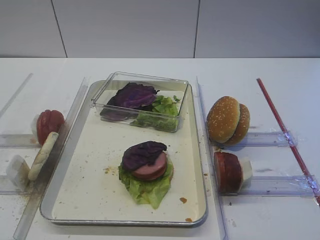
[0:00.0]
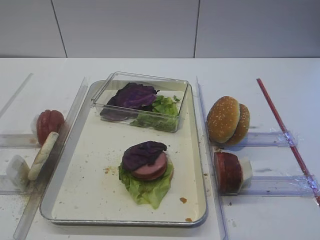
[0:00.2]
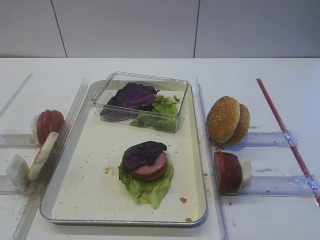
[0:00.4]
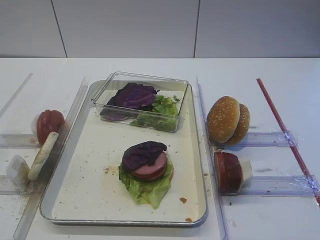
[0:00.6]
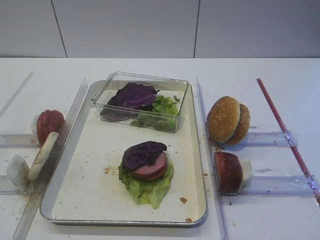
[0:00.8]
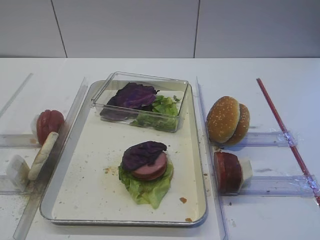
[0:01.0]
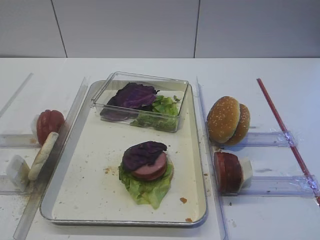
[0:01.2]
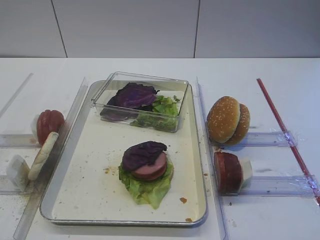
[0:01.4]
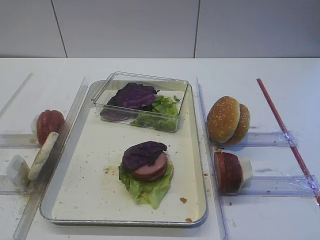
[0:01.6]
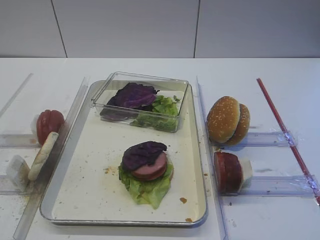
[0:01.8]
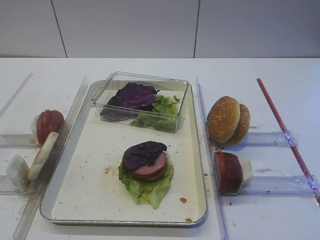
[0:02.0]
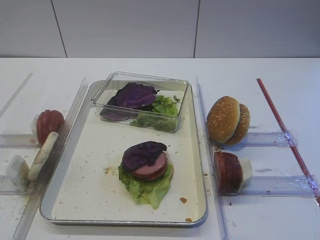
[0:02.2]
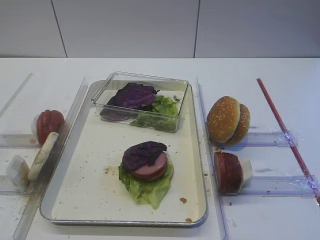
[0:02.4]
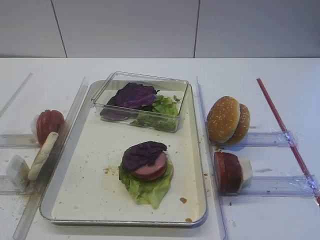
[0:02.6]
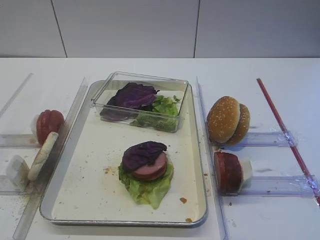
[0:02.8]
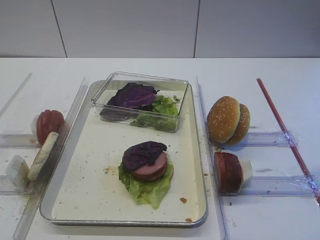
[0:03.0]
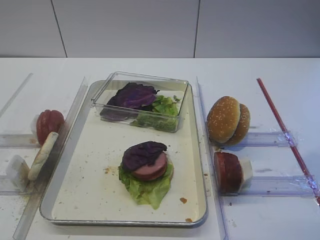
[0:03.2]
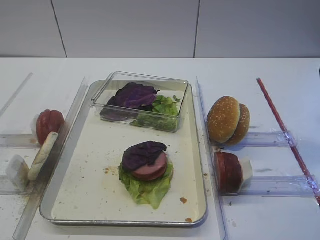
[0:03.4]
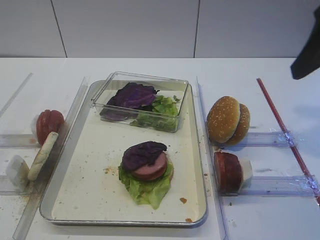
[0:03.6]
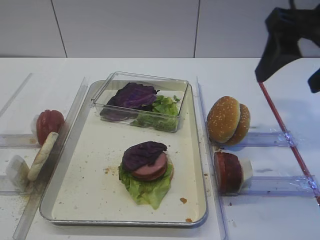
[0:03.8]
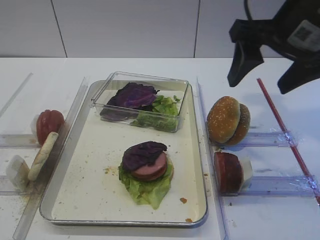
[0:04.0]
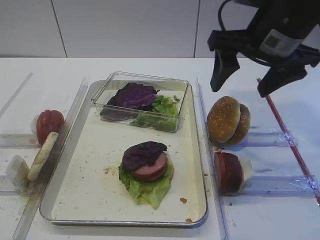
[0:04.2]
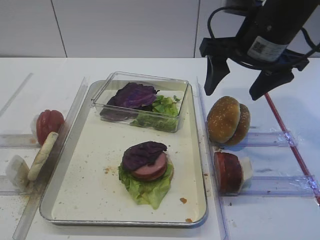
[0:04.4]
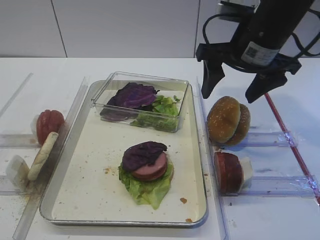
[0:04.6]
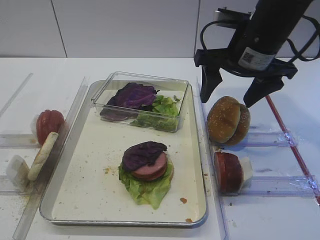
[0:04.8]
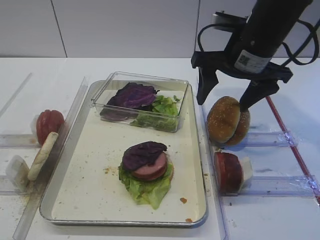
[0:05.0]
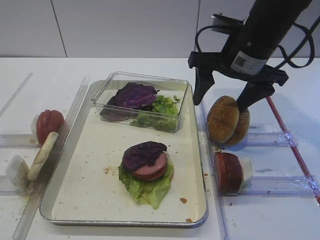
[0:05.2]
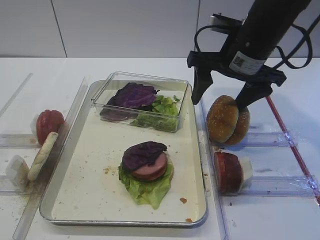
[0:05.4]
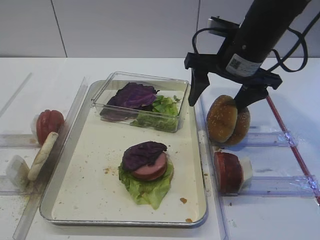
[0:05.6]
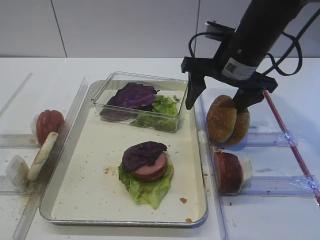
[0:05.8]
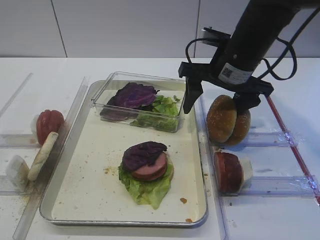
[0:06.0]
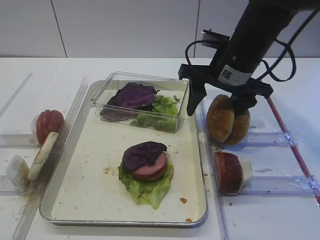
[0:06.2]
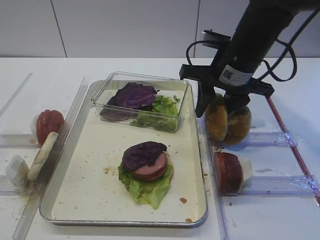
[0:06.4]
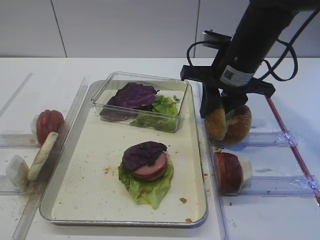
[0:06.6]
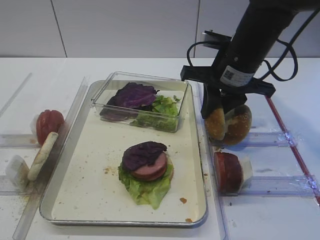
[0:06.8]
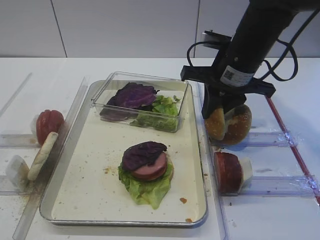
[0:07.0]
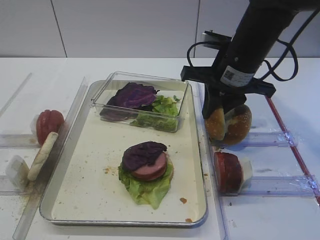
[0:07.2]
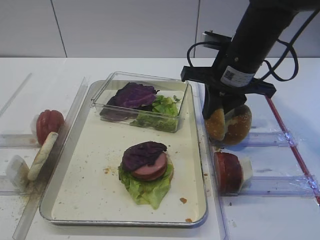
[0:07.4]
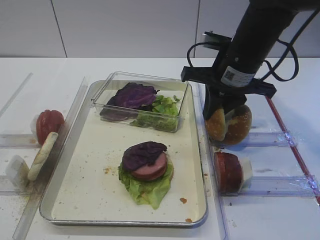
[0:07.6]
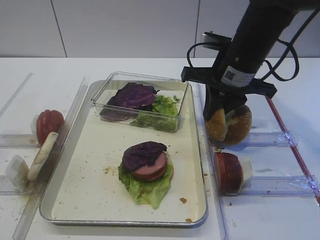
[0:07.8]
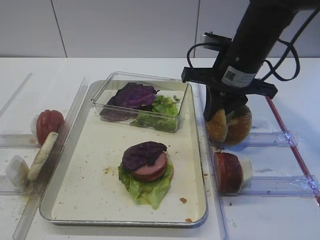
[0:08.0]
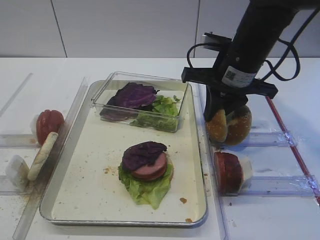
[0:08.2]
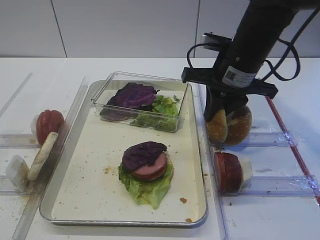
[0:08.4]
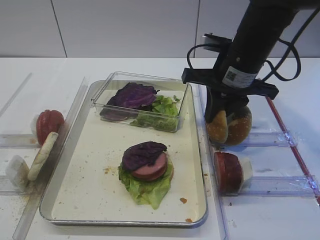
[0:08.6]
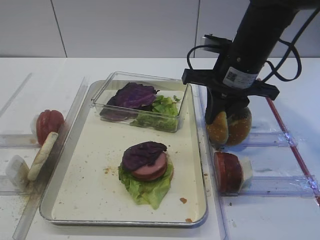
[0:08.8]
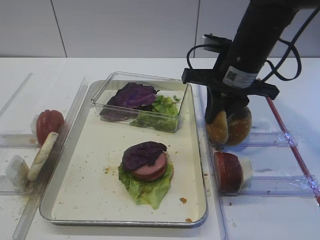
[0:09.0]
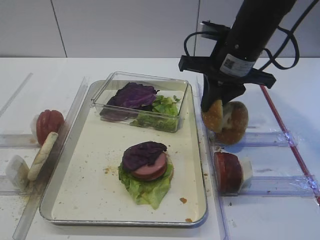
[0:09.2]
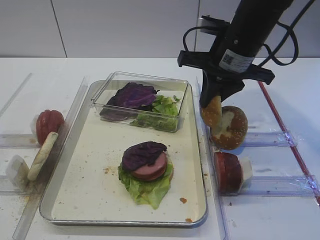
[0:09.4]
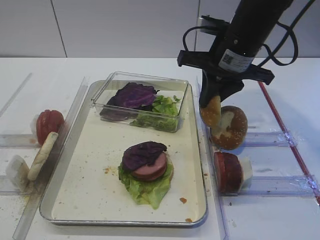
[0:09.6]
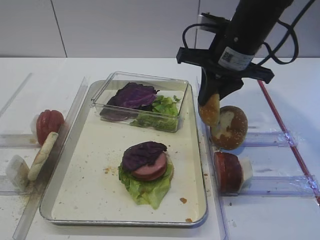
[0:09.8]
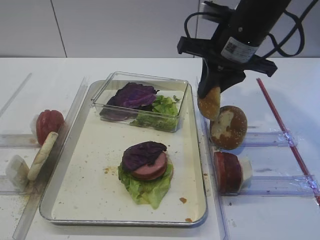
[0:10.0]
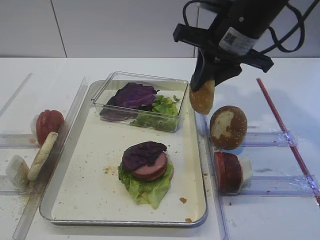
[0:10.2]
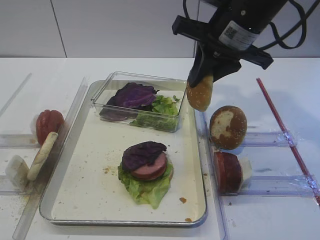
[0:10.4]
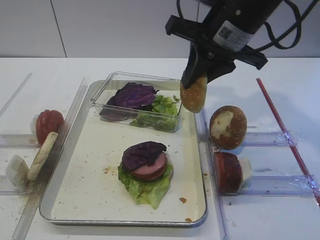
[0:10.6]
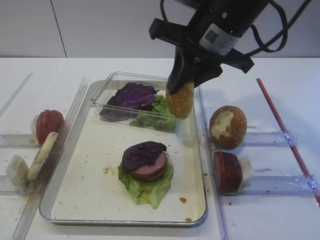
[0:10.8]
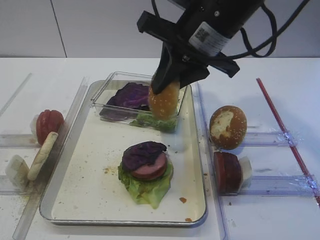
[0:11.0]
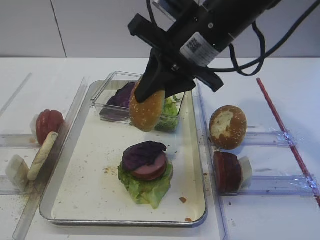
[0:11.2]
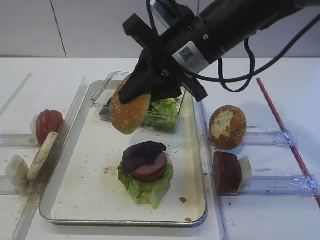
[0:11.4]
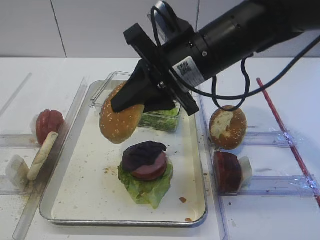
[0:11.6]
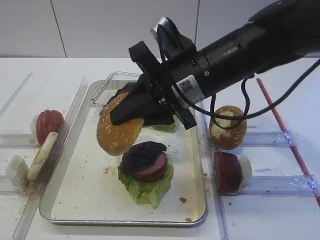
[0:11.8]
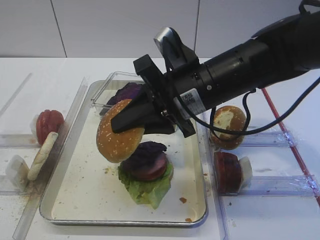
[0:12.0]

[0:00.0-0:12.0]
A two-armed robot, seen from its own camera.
Step, 0:00.0 to 0:09.2: Pick up the hamburger lid with the right gripper.
0:03.0 to 0:04.4: The right gripper shifts approximately 20 cm forward and to the left.
0:04.4 to 0:06.0: The right gripper heads downward, covering approximately 5 cm.
0:06.0 to 0:07.6: The right gripper closes.
0:07.6 to 0:09.0: Neither gripper changes place.
0:09.0 to 0:10.4: The right gripper moves upward, roughly 5 cm.
0:10.4 to 0:12.0: The right gripper shifts about 10 cm downward, backward and to the left.

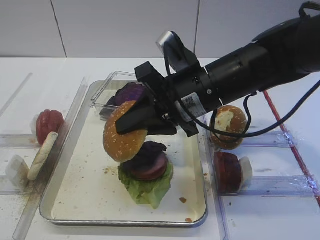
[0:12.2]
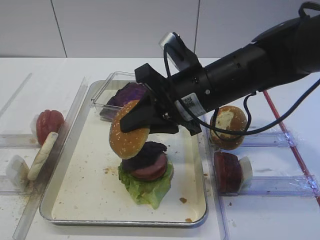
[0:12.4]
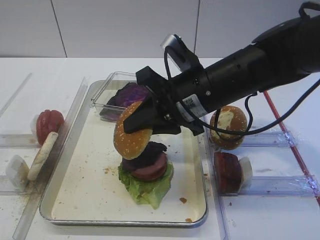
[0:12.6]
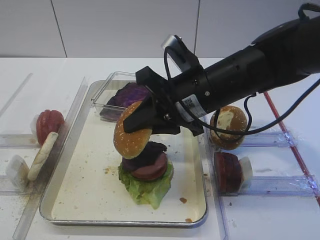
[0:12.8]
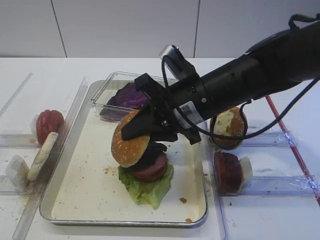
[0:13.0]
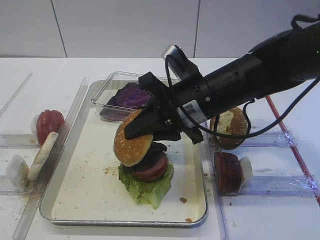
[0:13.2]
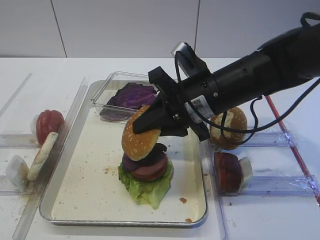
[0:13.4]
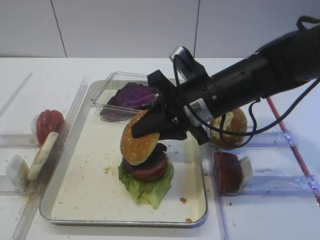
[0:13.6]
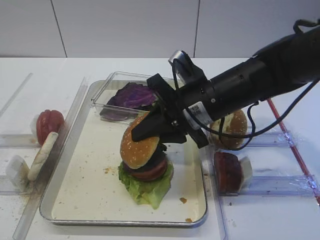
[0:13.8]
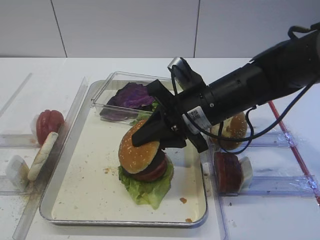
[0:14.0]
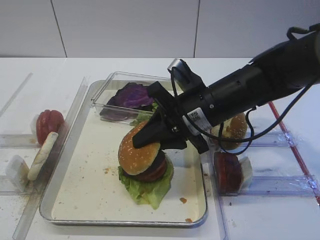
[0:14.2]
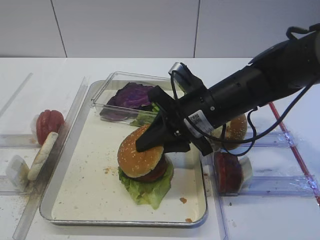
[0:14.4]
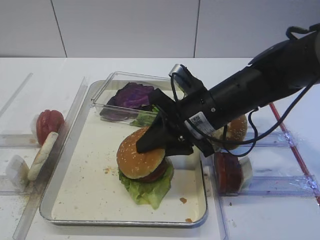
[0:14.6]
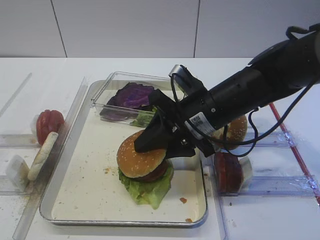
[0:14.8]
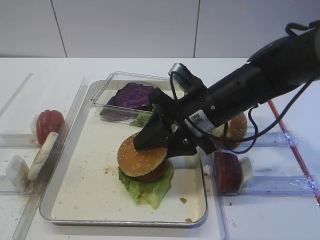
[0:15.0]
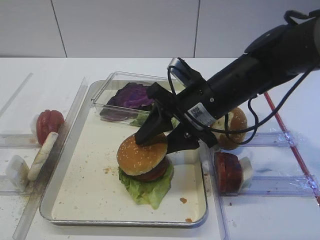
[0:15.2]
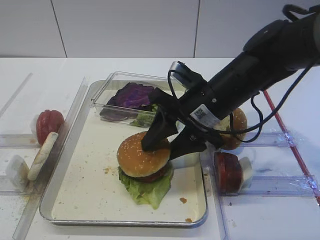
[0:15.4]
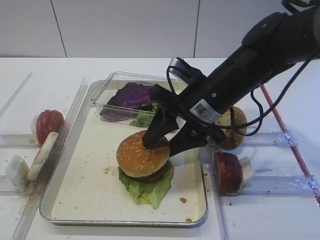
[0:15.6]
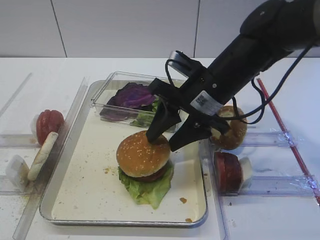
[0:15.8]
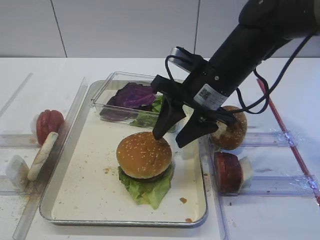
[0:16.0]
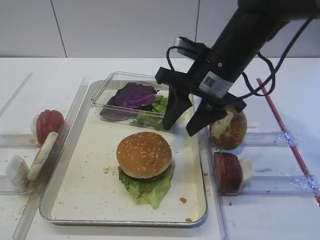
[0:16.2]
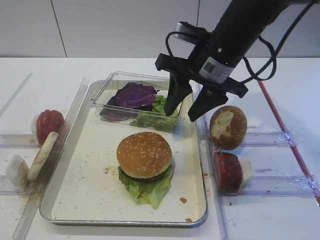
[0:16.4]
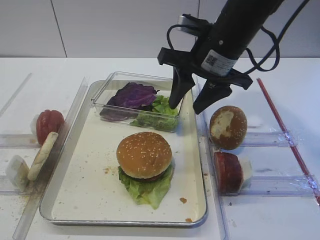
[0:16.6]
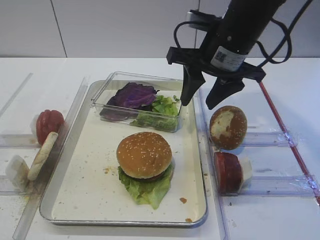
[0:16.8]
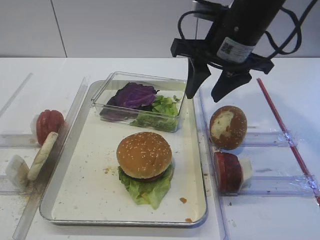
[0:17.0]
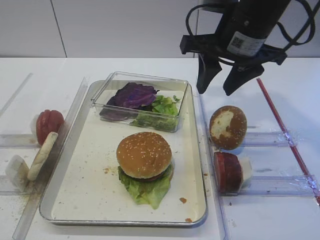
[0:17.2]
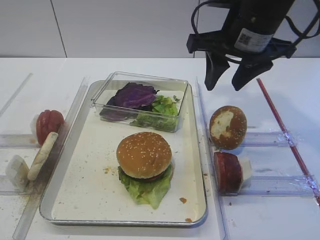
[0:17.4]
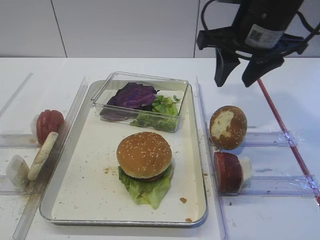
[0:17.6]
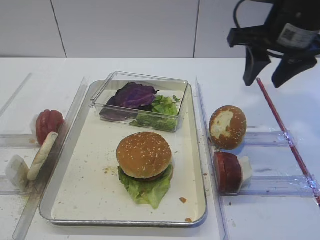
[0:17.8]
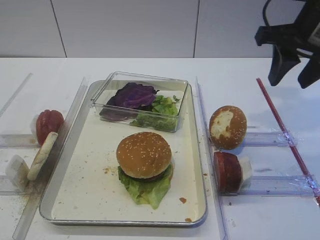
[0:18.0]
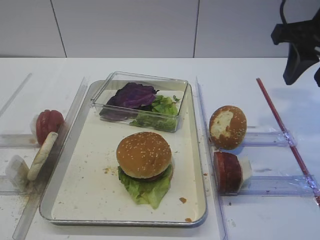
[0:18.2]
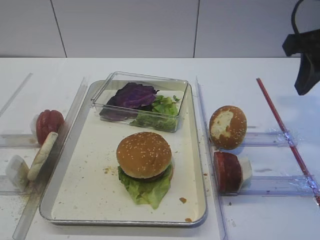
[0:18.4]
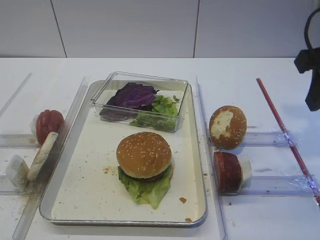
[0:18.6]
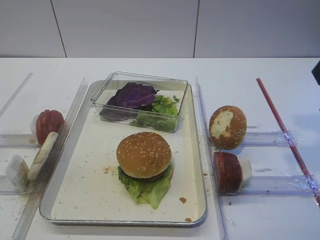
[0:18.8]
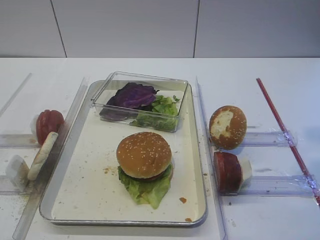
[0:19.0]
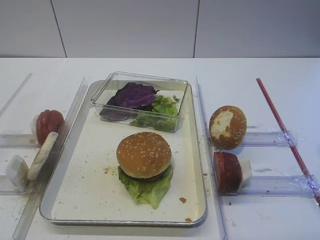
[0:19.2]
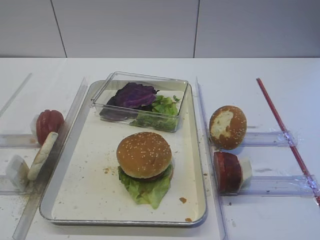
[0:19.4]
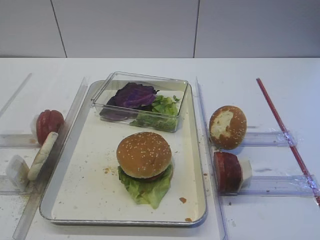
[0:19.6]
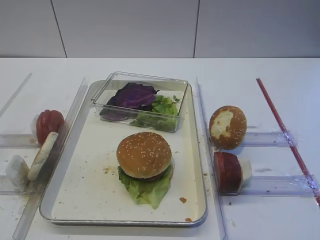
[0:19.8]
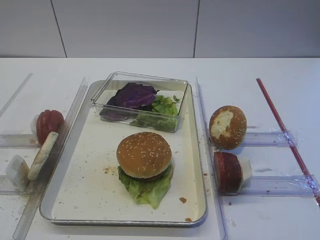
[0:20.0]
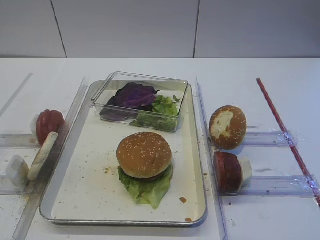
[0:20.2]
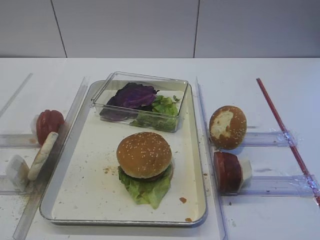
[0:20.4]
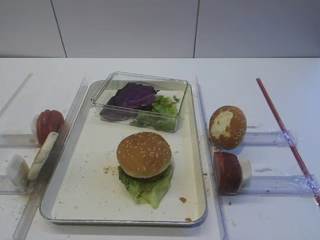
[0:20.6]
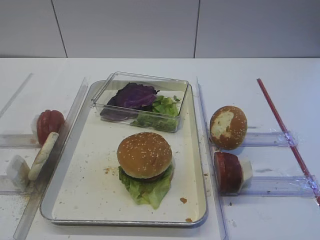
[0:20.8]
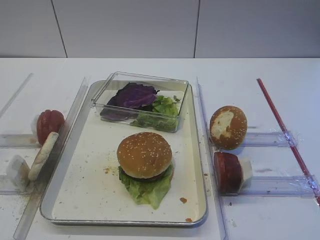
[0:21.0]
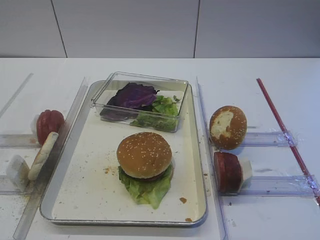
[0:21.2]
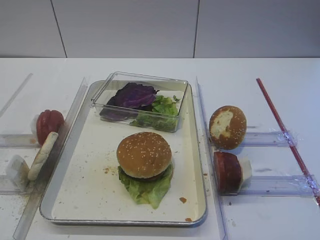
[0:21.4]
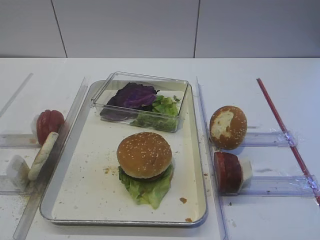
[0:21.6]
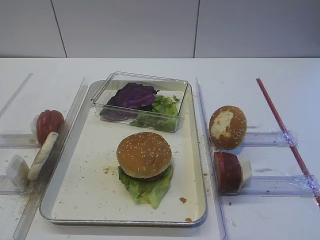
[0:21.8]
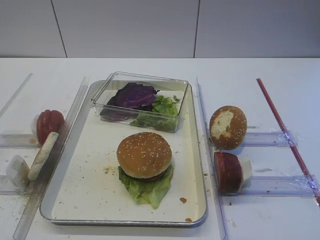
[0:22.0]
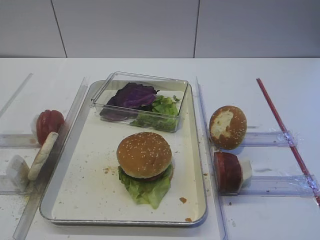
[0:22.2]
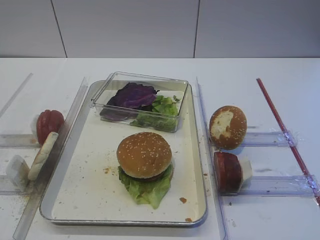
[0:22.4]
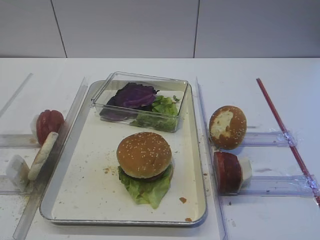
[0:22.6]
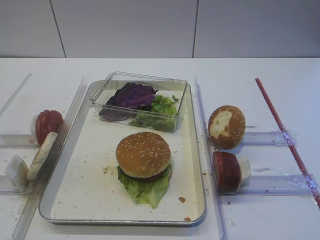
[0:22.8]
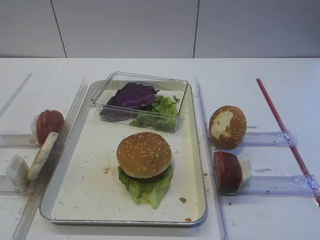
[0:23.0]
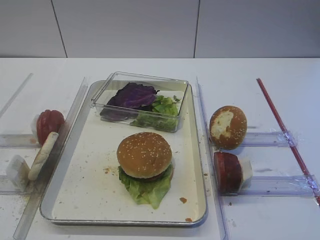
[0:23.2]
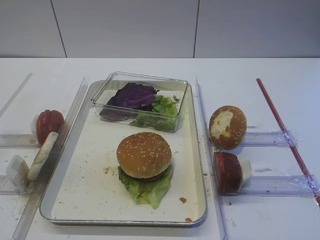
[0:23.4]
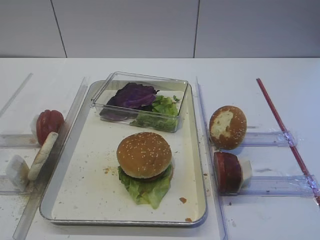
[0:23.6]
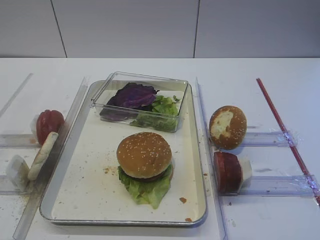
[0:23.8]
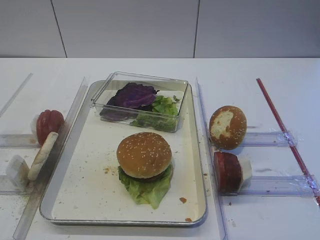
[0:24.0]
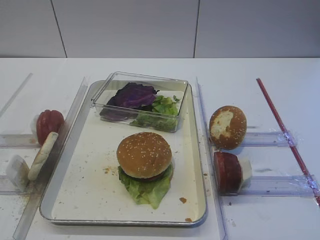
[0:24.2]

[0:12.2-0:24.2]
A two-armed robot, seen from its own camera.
Step, 0:12.2 to 0:15.8: Place the hamburger lid on the purple cabbage with the right gripper.
0:12.2 to 0:13.8: There are only small adjustments of the grippers.
0:13.8 to 0:15.2: The right gripper opens.
0:15.2 to 0:16.6: The right gripper moves upward, about 5 cm.
0:16.6 to 0:18.2: The right gripper heads to the right and upward, covering about 15 cm.
0:18.2 to 0:19.8: The right gripper shifts roughly 25 cm backward.
